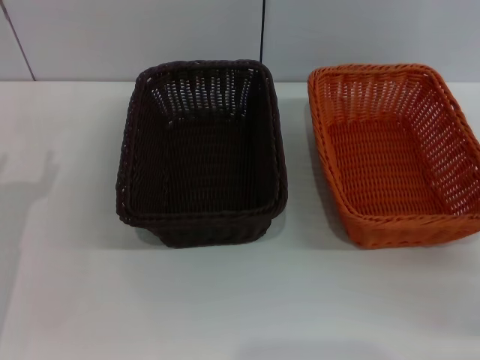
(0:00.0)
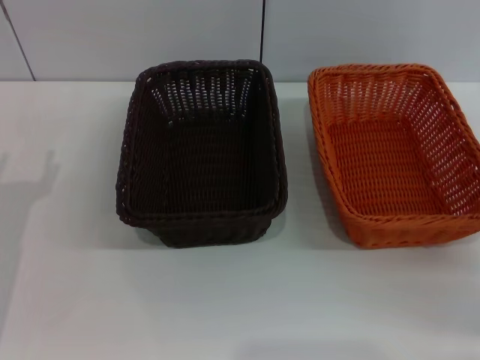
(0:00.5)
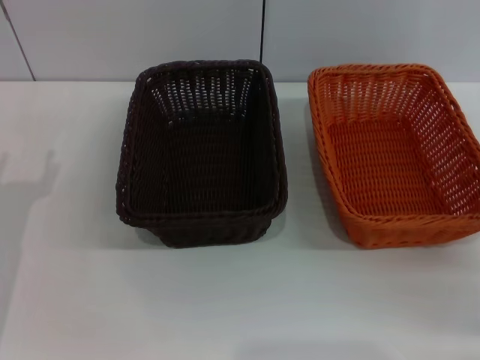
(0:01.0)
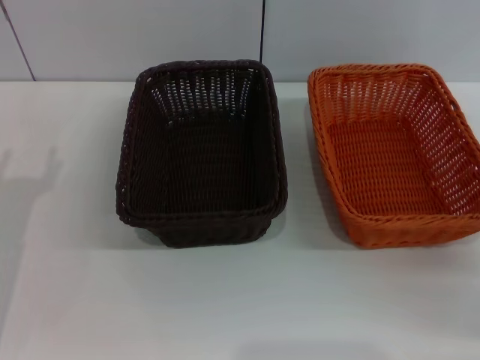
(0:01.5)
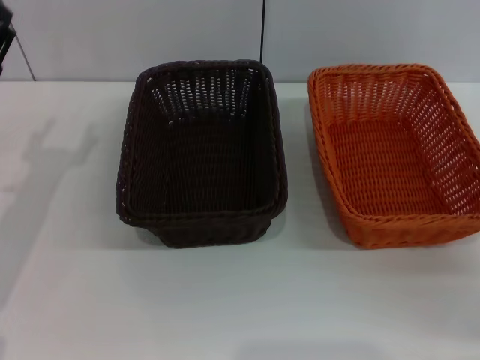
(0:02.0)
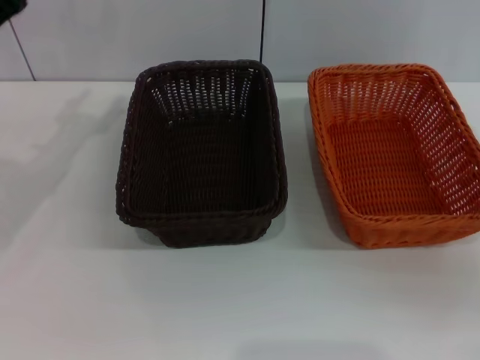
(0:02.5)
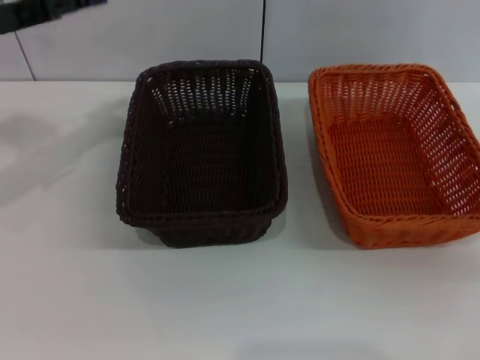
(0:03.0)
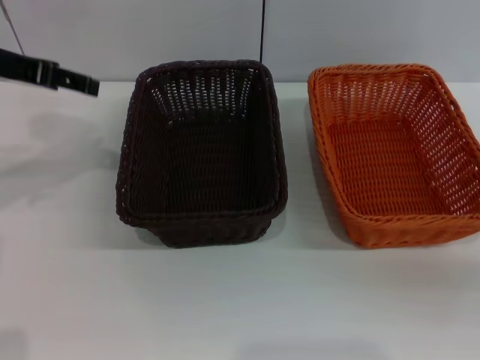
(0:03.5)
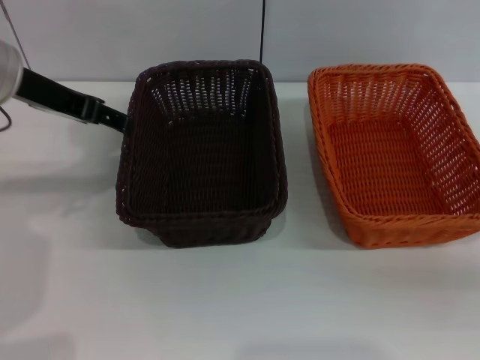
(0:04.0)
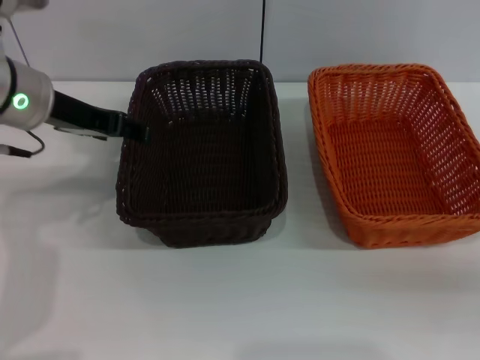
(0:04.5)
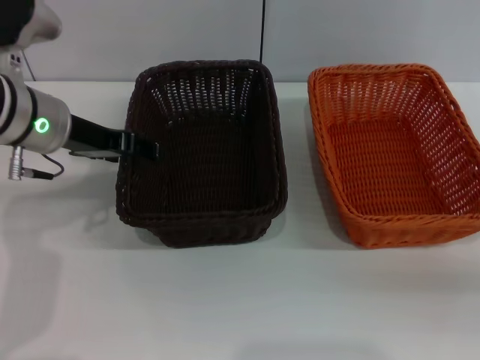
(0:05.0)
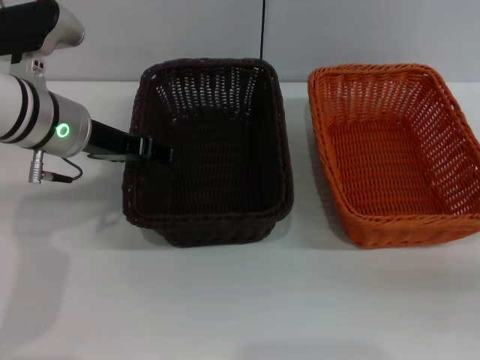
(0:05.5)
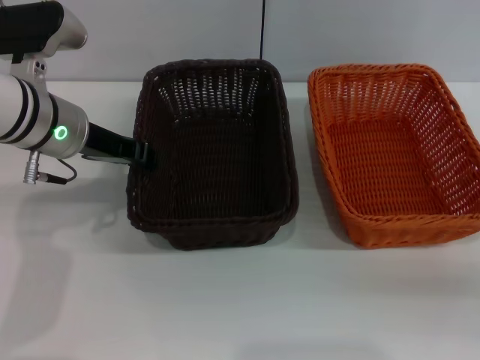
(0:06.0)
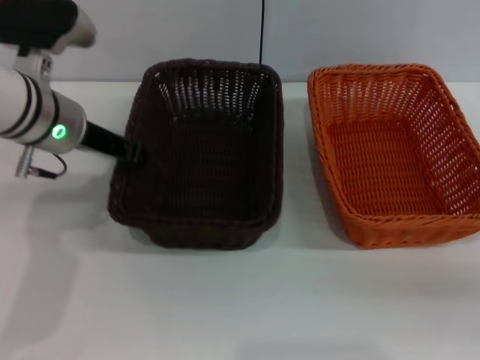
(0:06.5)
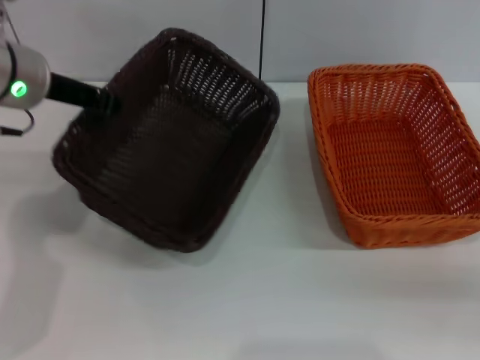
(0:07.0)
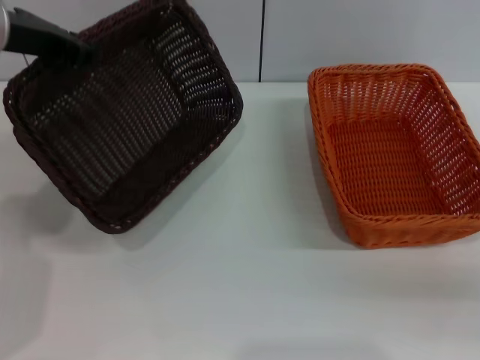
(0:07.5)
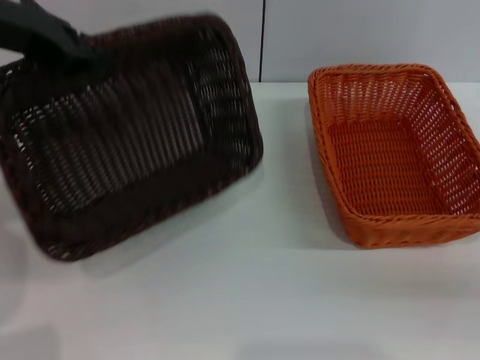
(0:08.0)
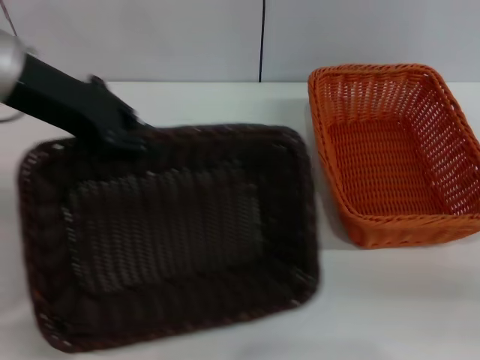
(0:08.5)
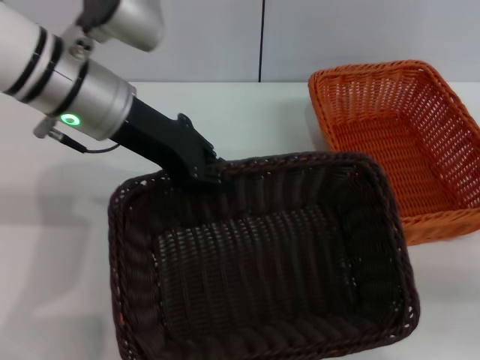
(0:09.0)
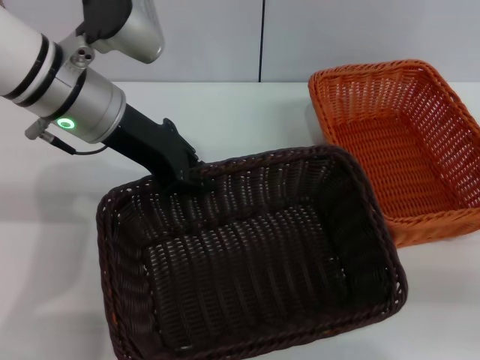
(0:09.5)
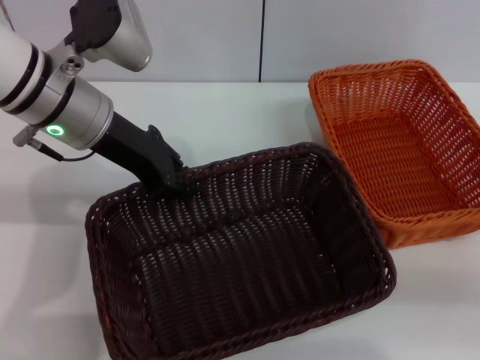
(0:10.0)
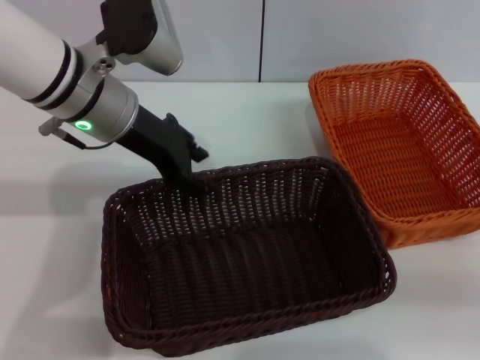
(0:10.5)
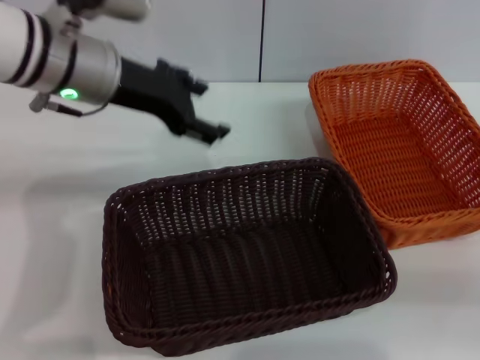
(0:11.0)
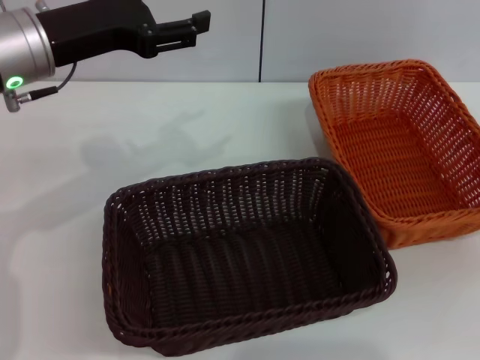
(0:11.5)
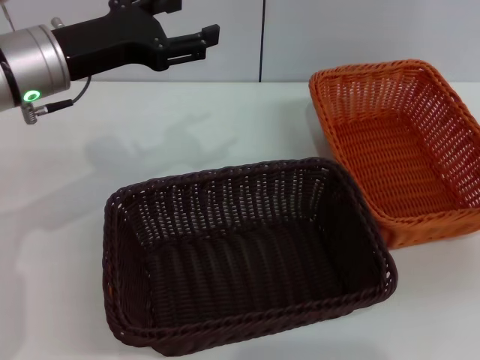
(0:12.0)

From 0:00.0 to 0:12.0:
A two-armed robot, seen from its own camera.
Step, from 0:00.0 to 0:06.5: Pick up the dark basket with the left gripper.
Step, from 0:07.0 to 0:10.0: Place the dark basket in the center of view with the left gripper.
From 0:02.0 to 0:04.0: The left gripper is displaced upward, forward and to the right by approximately 15 cm.
From 0:04.0 to 0:06.0: The left gripper travels downward by some 5 cm, and closes its fingers.
From 0:06.0 to 0:08.0: The left gripper shifts approximately 15 cm upward, and closes.
From 0:08.0 to 0:10.0: The left gripper is displaced downward and to the right by about 10 cm.
From 0:10.0 to 0:12.0: The left gripper opens its fingers. The right gripper moves upward, about 10 cm.

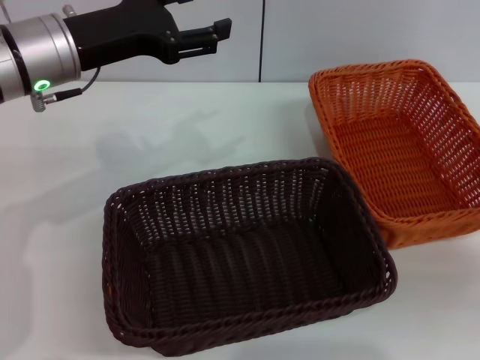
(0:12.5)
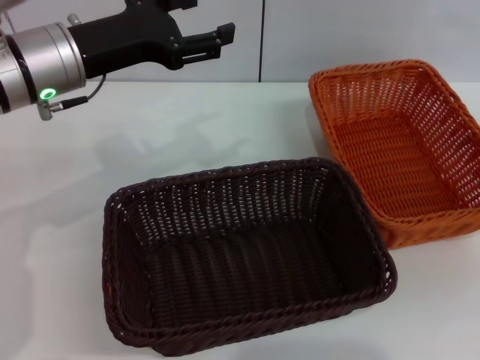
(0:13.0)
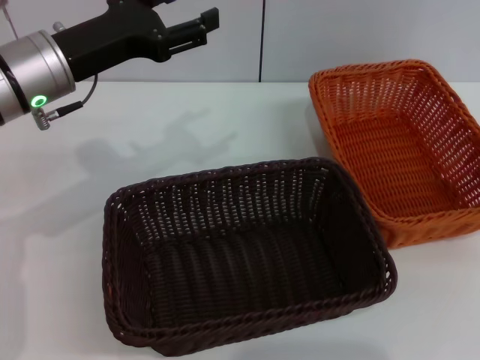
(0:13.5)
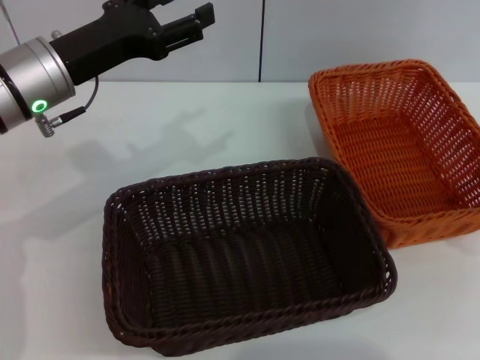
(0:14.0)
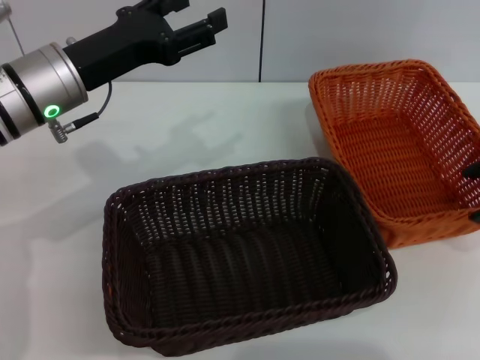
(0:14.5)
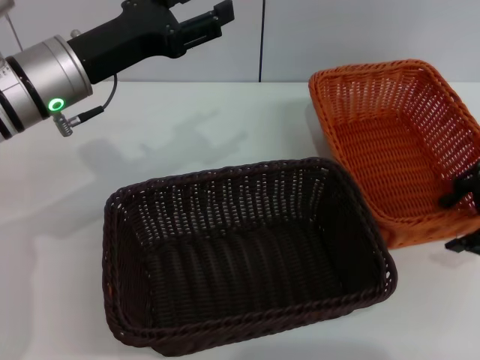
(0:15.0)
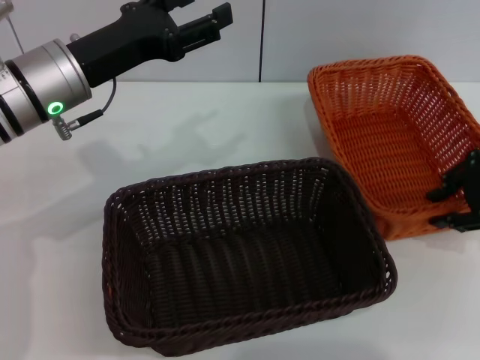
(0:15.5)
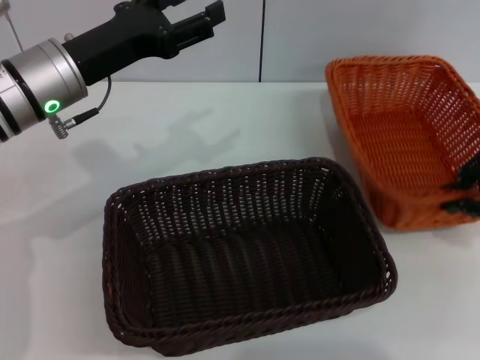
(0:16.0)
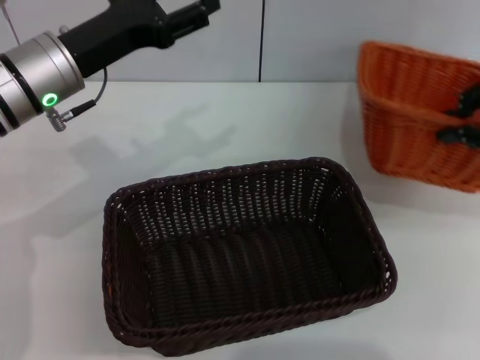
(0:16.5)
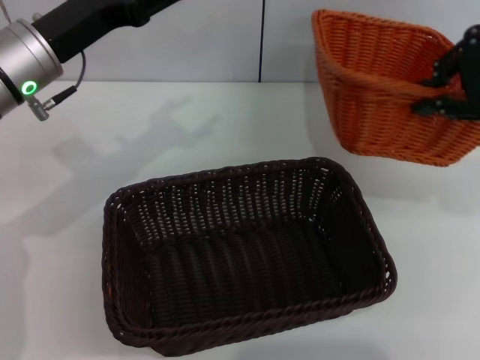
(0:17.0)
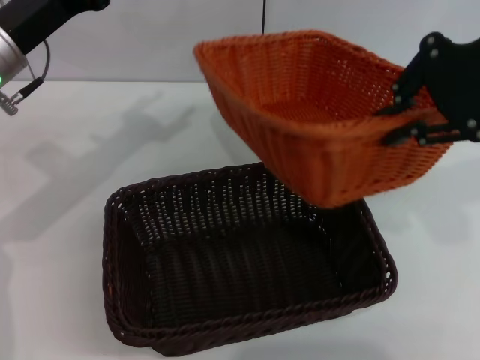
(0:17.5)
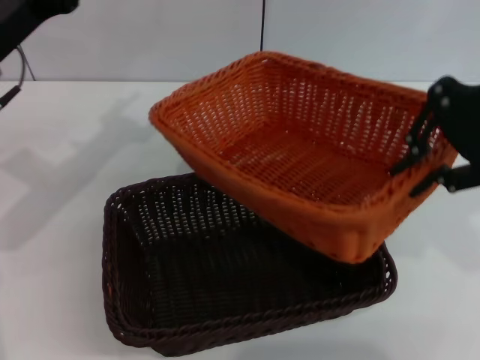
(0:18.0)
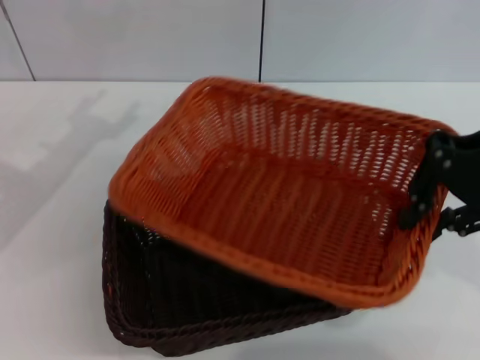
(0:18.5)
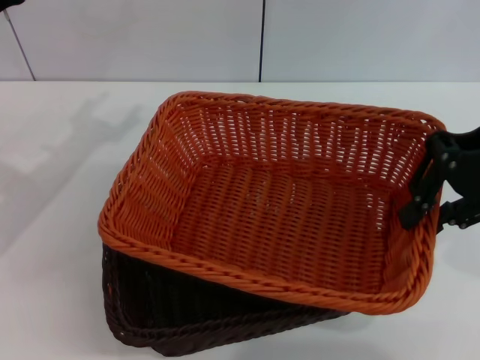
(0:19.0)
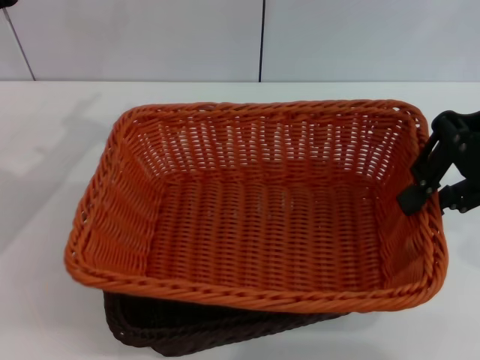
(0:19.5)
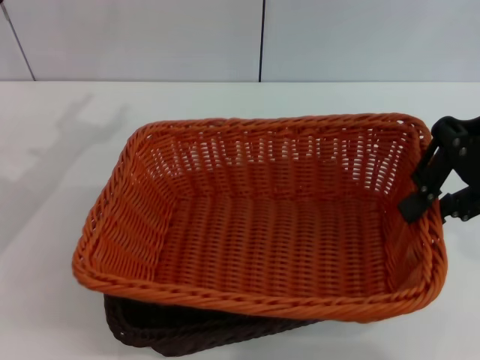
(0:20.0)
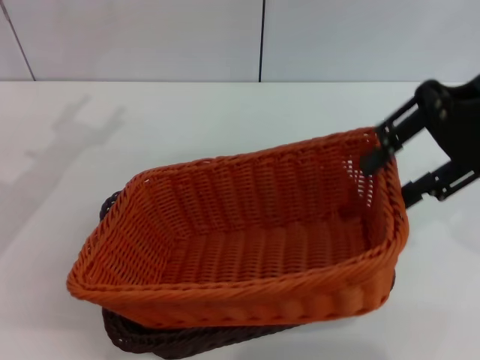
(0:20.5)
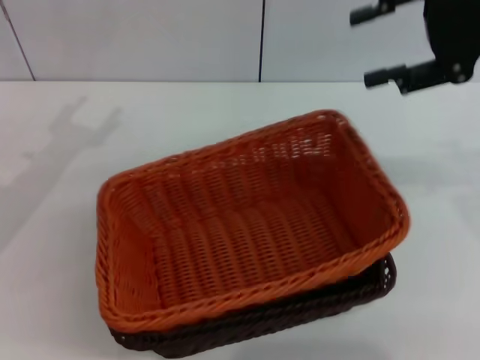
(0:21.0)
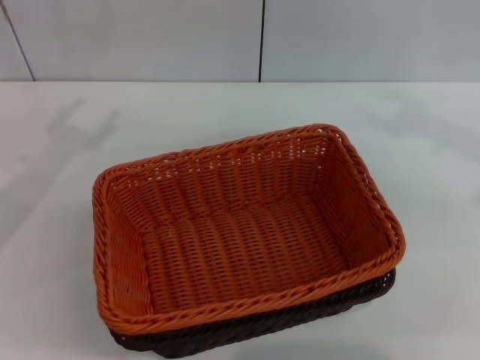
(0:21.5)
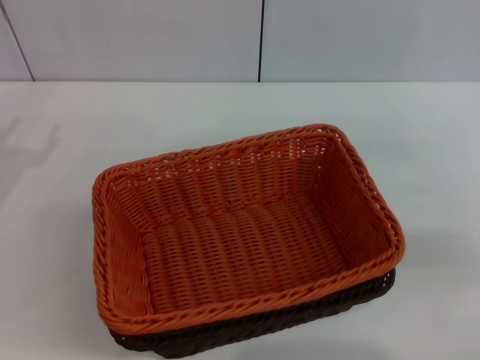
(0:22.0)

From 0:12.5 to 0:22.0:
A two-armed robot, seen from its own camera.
Step, from 0:12.5 to 0:16.0: Pick up the light basket with the right gripper.
Step, from 0:16.5 to 0:20.5: Place the light basket on the dark basket with the right gripper.
From 0:12.5 to 0:14.5: The right gripper heads forward, upward and to the left, covering roughly 15 cm.
From 0:14.5 to 0:16.5: The right gripper closes.
From 0:16.5 to 0:18.0: The right gripper shifts some 10 cm to the left and upward, while the left gripper shifts approximately 5 cm to the left.
From 0:20.0 to 0:22.0: The left gripper heads to the left and backward, covering some 5 cm; the right gripper travels downward and to the right by about 20 cm, and opens its fingers.
